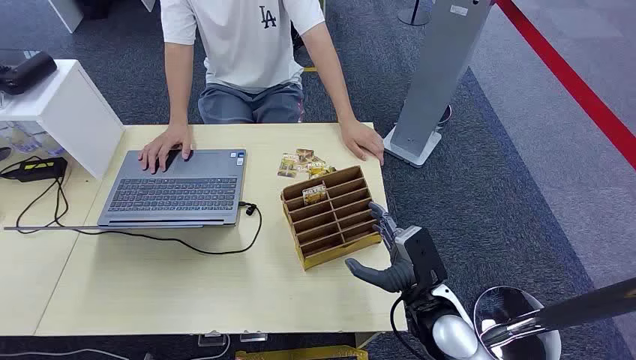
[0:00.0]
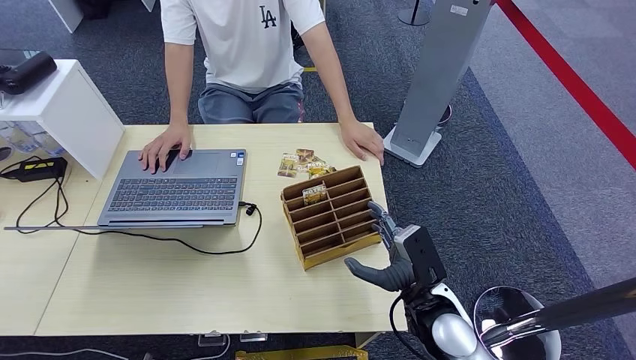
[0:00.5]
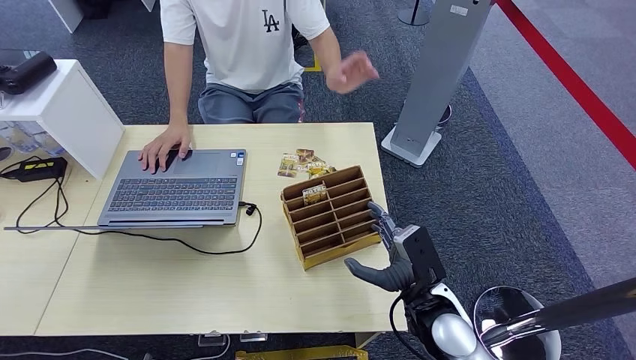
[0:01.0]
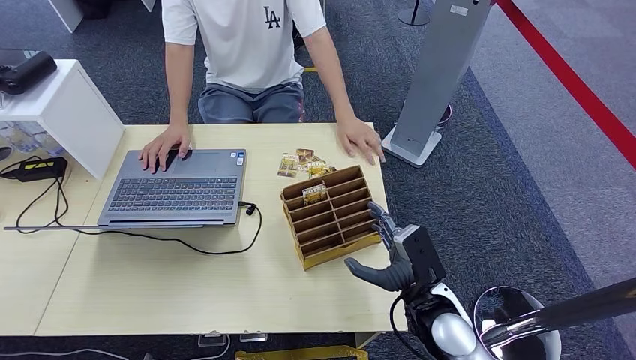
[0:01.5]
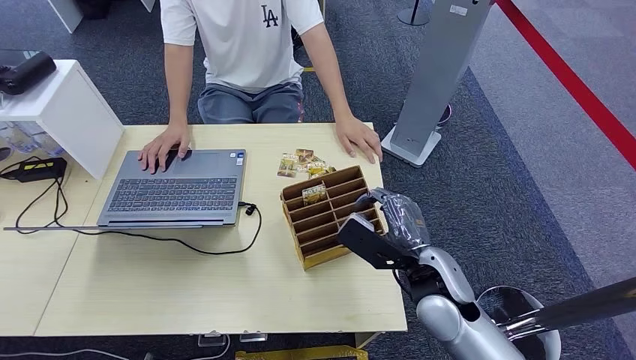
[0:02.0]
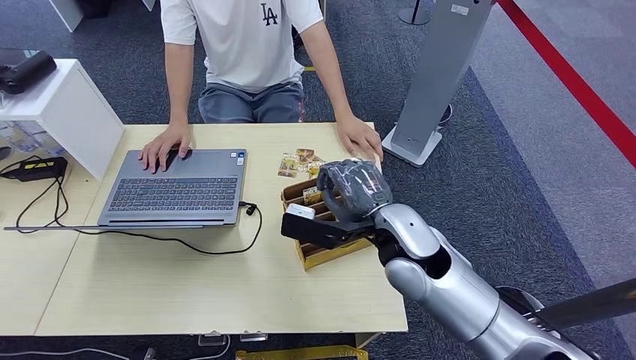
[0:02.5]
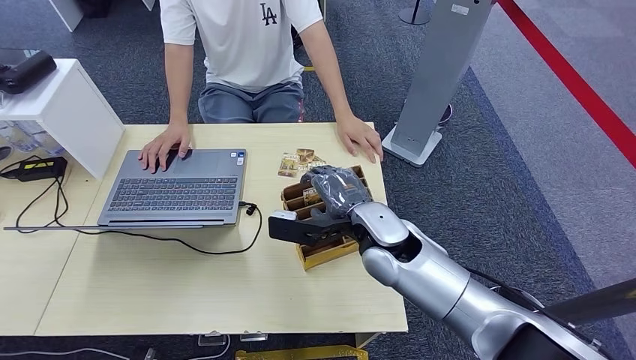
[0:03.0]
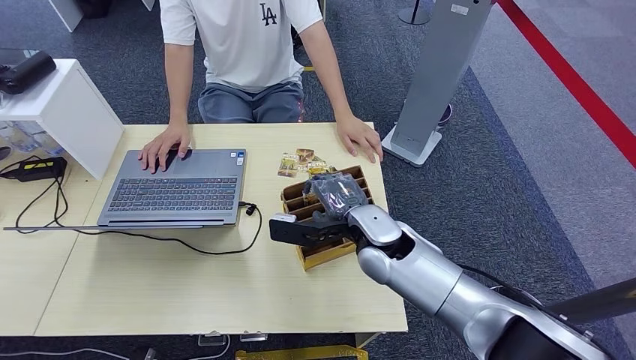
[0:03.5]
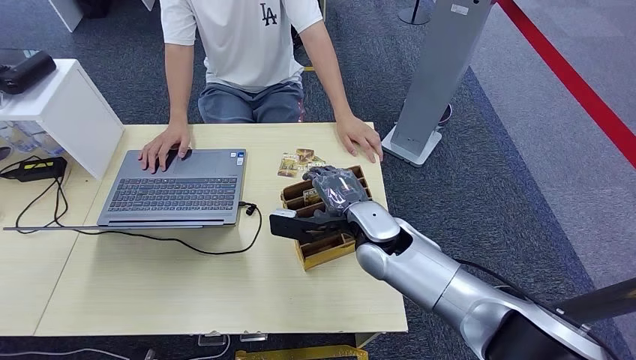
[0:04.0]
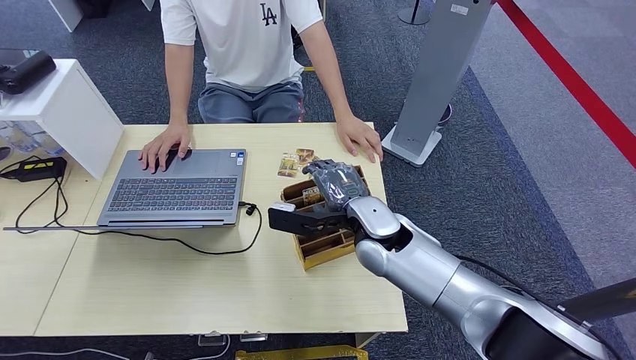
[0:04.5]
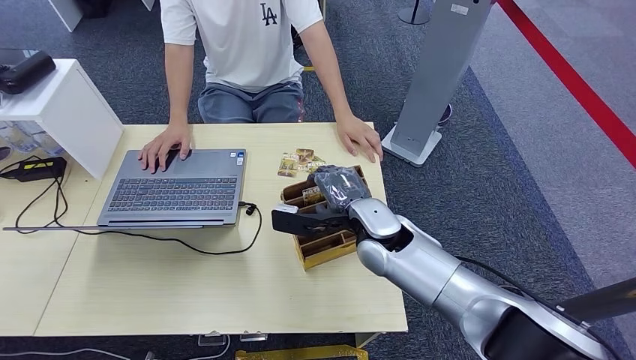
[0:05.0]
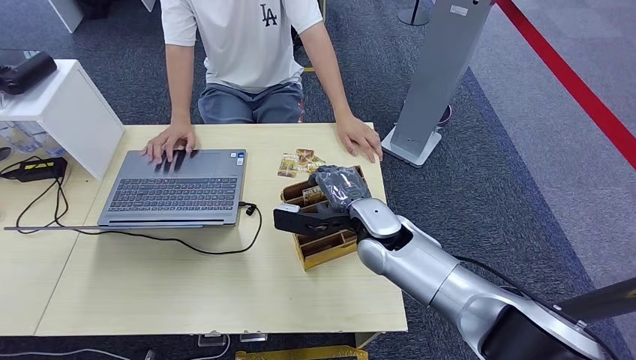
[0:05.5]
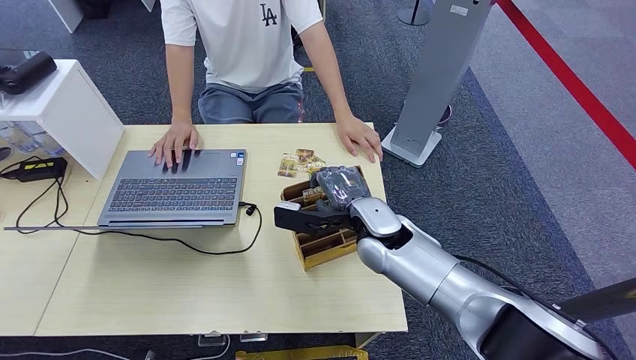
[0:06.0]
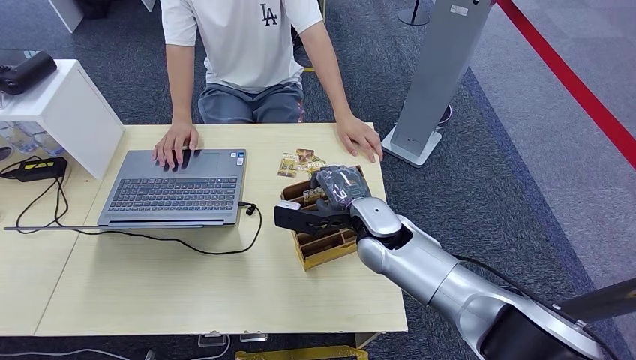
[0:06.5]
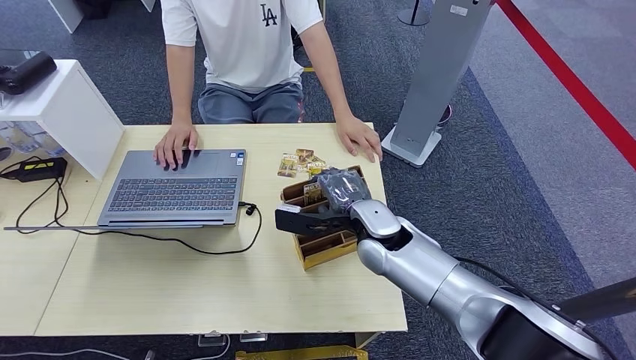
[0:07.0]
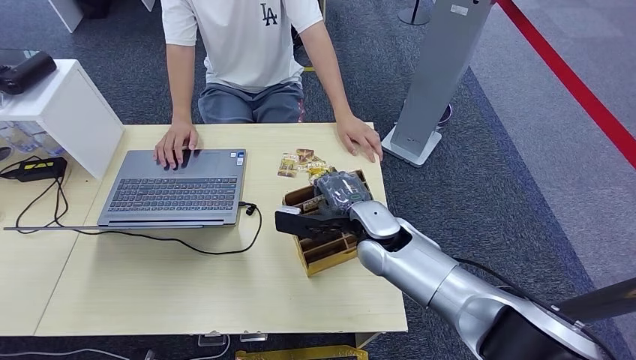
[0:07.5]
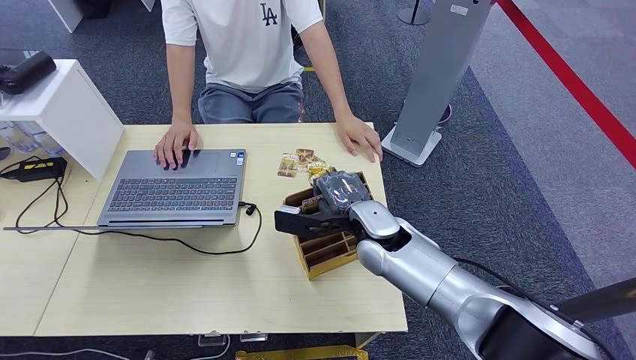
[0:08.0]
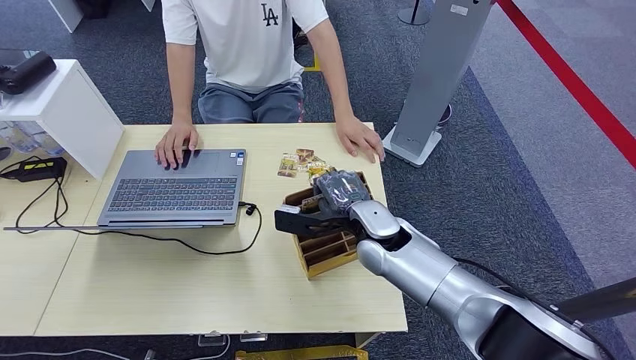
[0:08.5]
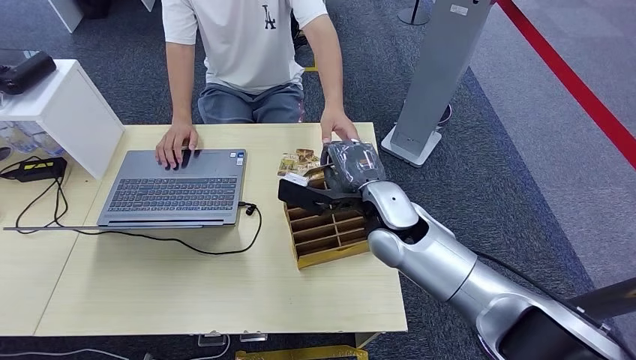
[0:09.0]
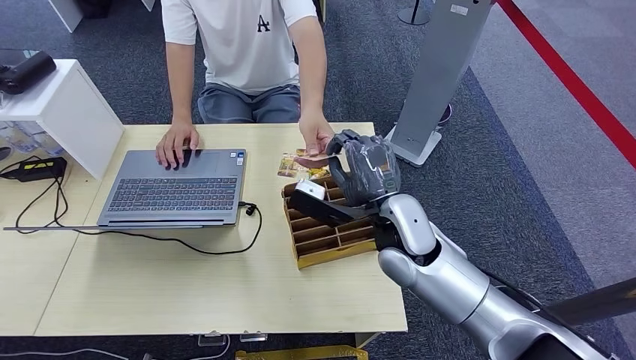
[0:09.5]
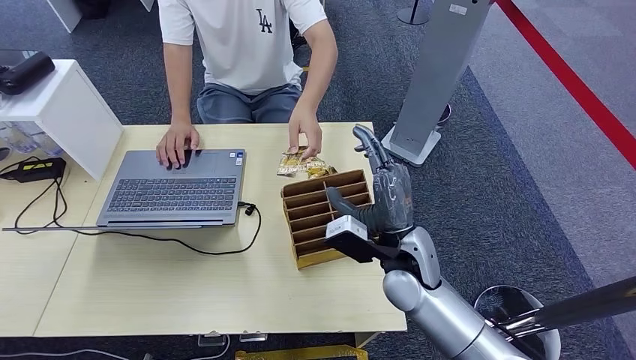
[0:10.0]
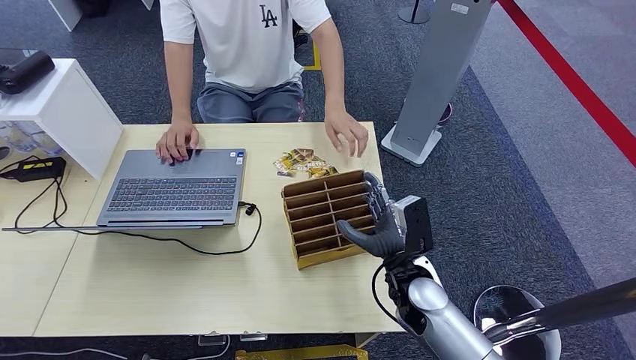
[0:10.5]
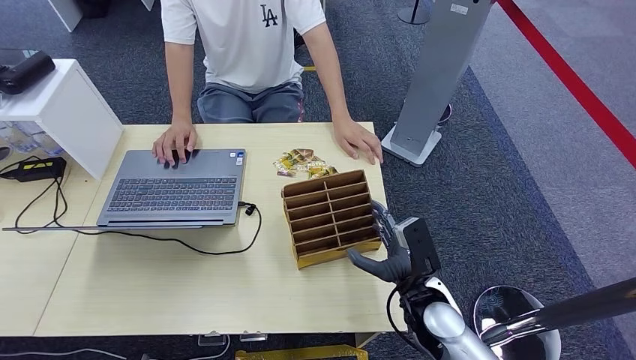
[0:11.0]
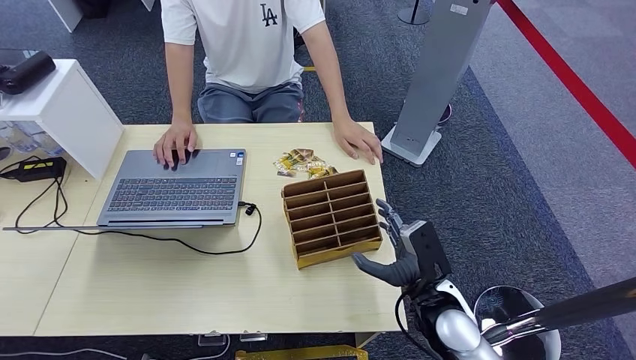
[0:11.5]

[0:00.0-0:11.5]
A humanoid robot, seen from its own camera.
Step, 0:00.0 to 0:08.5: Pick up the room card from the card holder.
Step, 0:09.0 to 0:11.5: Hand the room card to the target.
0:02.0 to 0:04.0: The right hand heads forward and to the left, covering approximately 10 cm.
0:04.0 to 0:06.0: There are only small adjustments of the hands.
0:06.0 to 0:07.5: Both hands stay about where they are.
0:07.5 to 0:09.5: The right hand moves approximately 10 cm.
0:09.5 to 0:11.5: The right hand heads downward, backward and to the right, covering roughly 15 cm.
